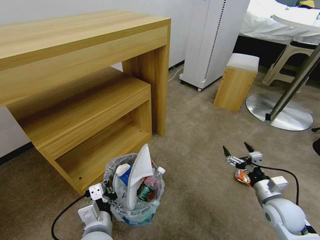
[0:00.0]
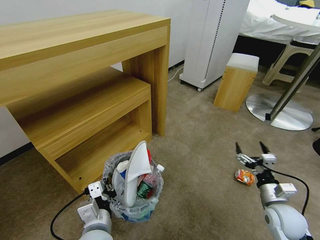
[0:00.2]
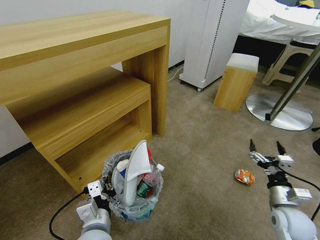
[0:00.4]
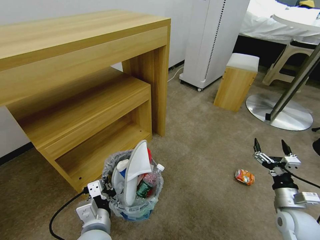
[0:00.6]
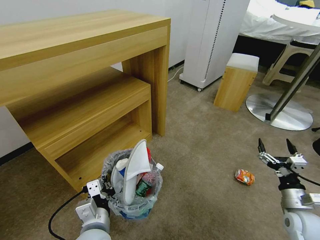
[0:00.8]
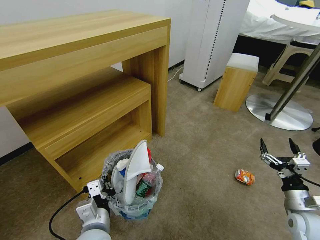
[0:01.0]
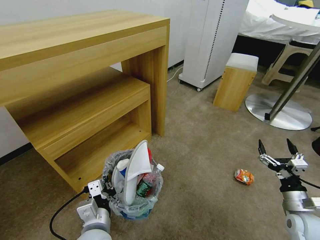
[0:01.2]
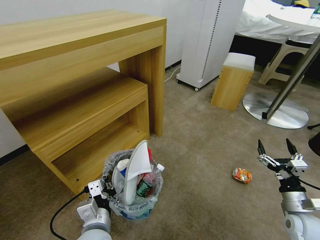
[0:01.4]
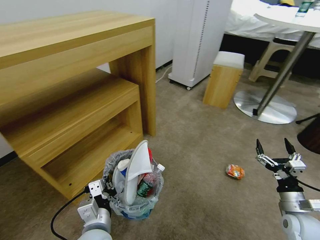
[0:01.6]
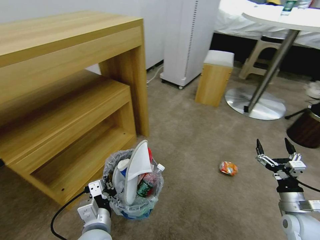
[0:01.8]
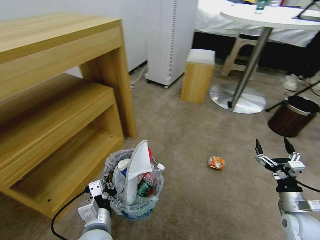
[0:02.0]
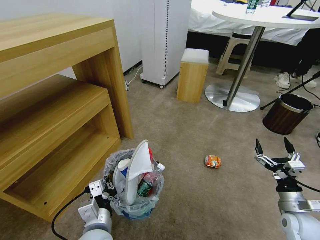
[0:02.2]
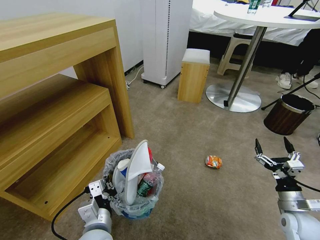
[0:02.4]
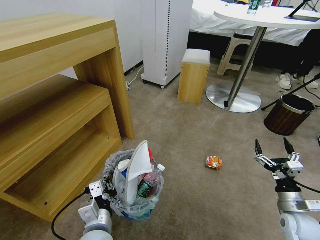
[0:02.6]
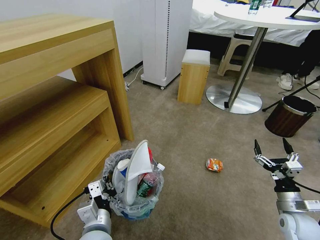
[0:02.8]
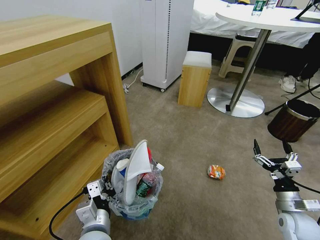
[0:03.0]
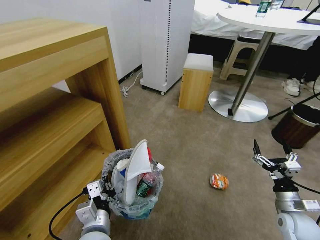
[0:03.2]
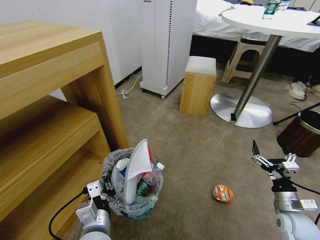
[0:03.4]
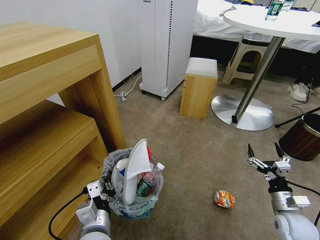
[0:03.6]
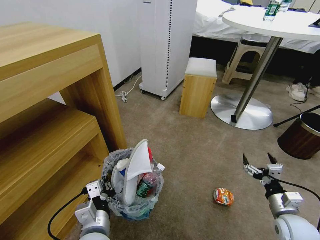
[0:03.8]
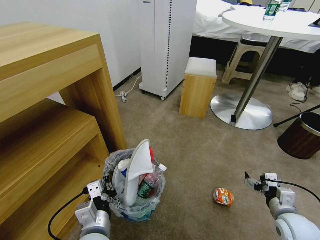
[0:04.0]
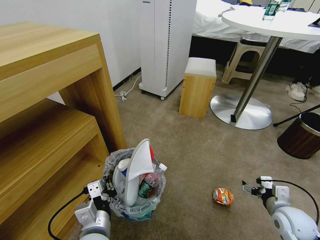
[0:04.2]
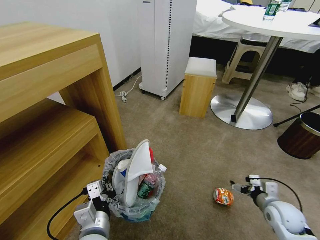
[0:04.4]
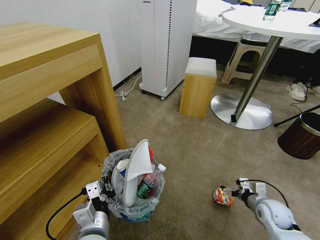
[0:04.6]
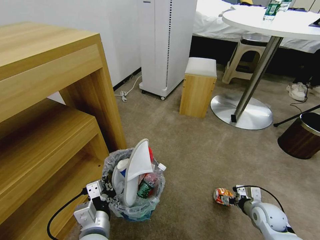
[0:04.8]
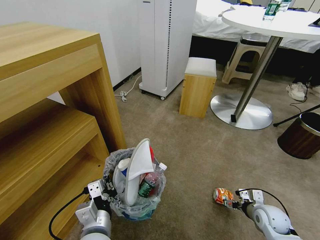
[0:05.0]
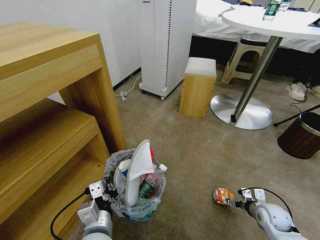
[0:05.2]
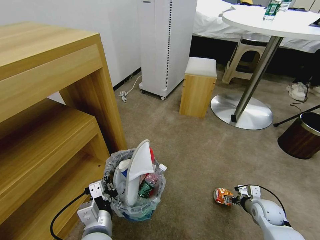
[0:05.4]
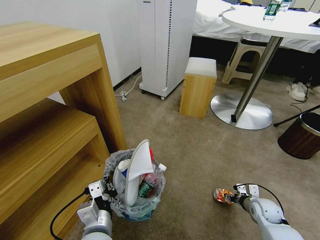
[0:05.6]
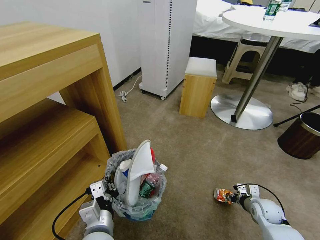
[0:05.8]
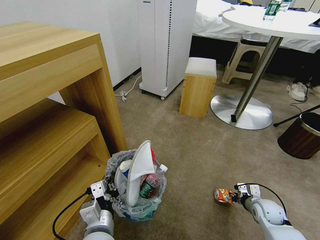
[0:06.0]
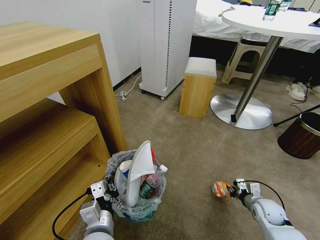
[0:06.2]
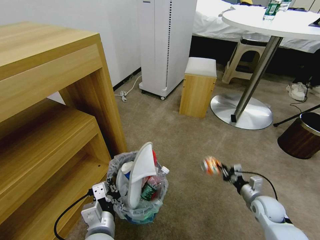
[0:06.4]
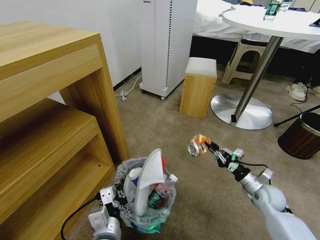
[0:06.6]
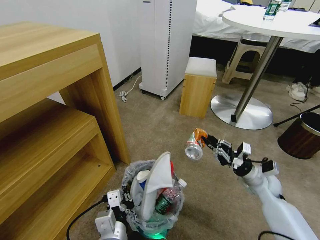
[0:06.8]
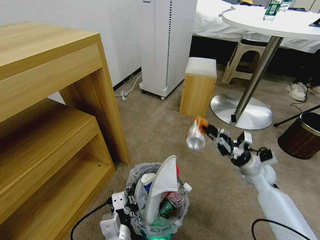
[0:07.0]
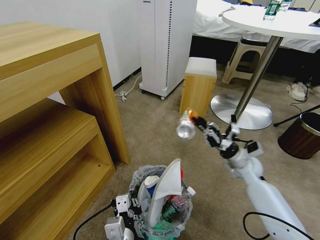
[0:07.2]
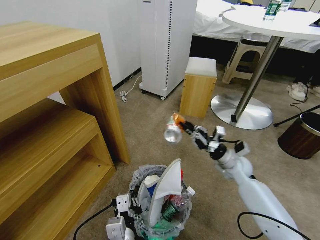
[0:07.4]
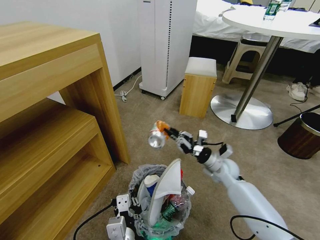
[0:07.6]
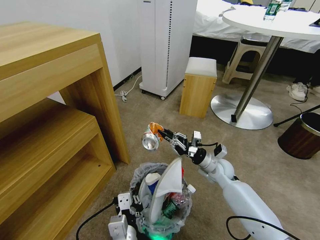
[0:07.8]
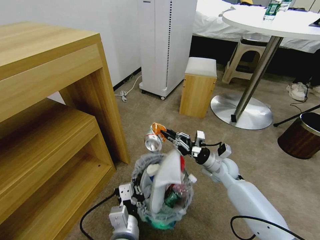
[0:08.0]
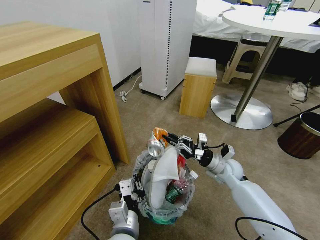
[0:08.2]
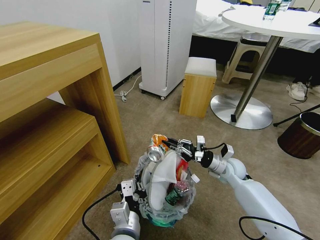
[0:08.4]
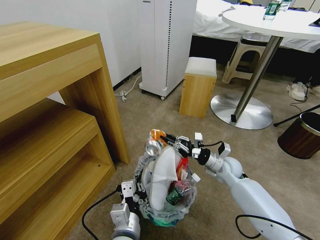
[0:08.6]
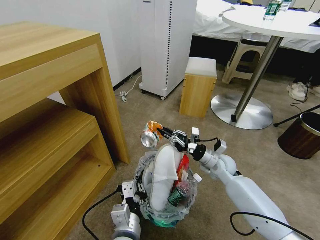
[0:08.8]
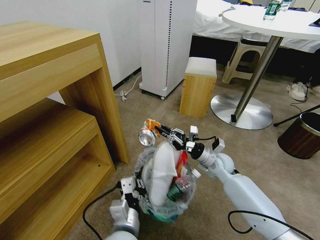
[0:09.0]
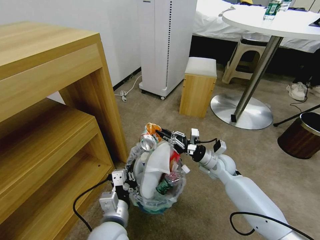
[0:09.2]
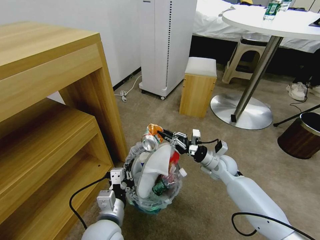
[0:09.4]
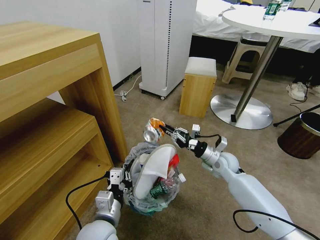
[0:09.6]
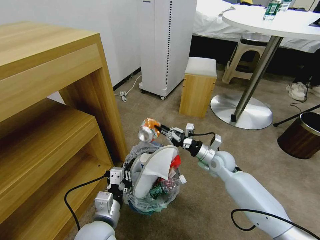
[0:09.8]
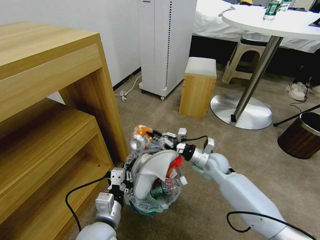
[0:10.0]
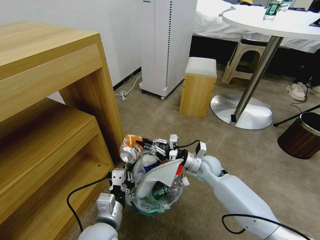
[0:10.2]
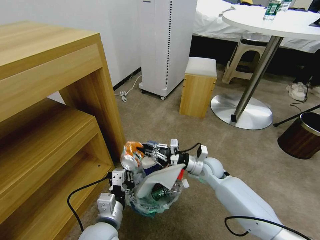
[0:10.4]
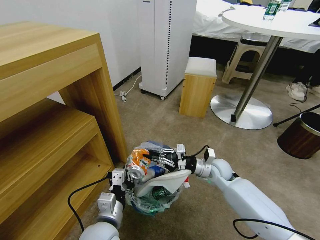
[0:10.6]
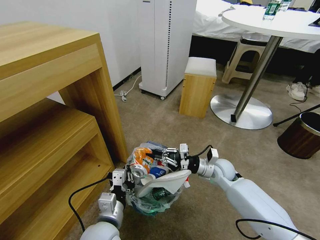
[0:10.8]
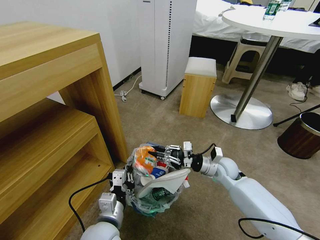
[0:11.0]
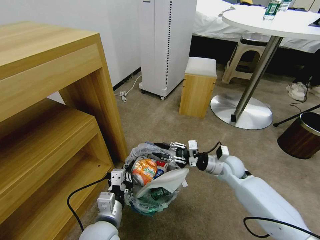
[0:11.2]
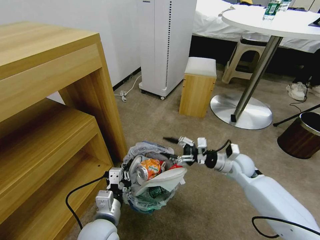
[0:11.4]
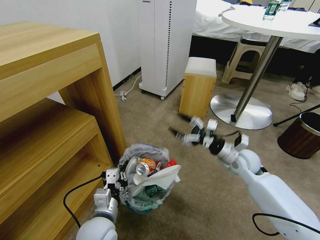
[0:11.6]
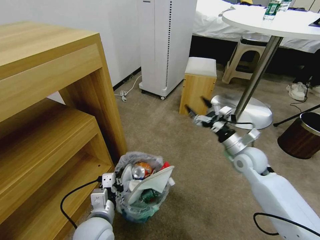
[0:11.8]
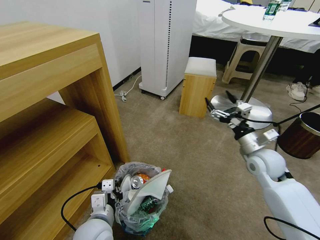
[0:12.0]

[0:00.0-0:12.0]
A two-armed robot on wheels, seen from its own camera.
Task of the whole recording: Pick up the trash bin and place the garbage on the floor into it.
0.0 to 1.6 s: The right gripper ends up about 5 cm from where it was.
4.4 to 6.0 s: The right gripper moves downward, some 5 cm, and closes its fingers.
6.0 to 7.6 s: The right gripper moves to the left, forward and upward, some 20 cm. The left gripper is displaced to the right by roughly 5 cm.
7.6 to 9.0 s: There are only small adjustments of the grippers.
9.0 to 10.4 s: The left gripper travels to the left by roughly 5 cm.
10.4 to 12.0 s: The right gripper is displaced to the right and upward by roughly 15 cm, and opens its fingers.

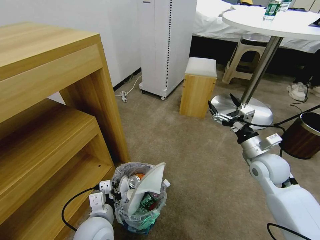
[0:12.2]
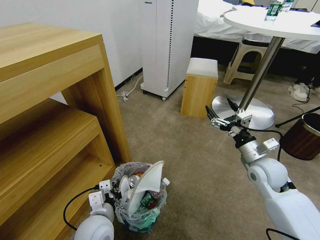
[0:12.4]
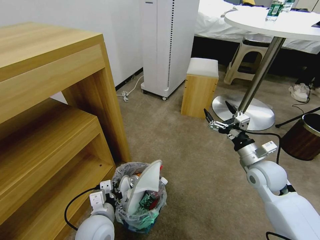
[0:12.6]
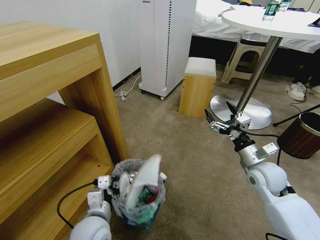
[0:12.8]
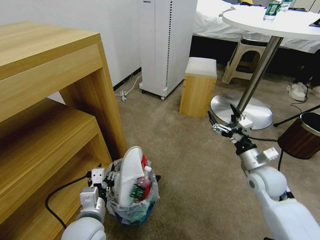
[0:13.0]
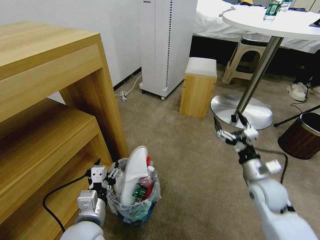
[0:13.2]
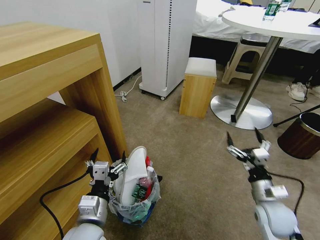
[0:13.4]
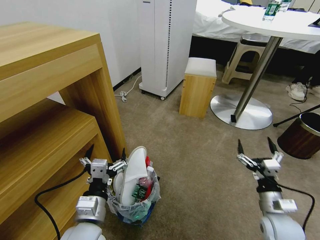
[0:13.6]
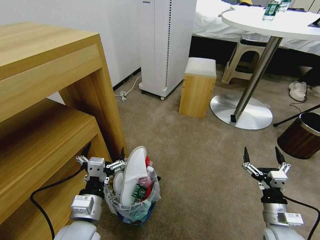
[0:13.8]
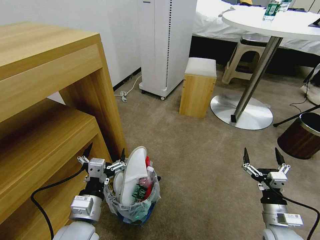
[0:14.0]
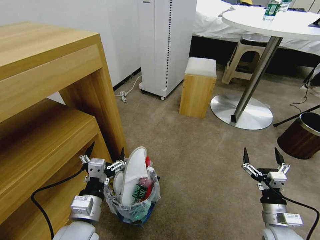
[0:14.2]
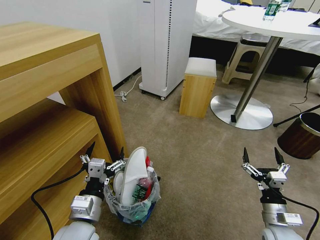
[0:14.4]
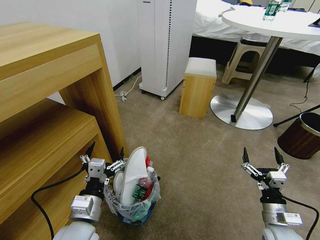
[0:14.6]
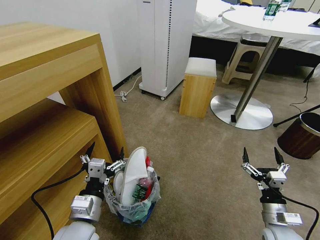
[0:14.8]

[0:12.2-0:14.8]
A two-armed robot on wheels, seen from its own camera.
Task of the whole recording: Pick up the trash bin and place the garbage on the floor into it.
12.2 to 13.4 s: The right gripper is displaced backward and downward by some 15 cm, while the left gripper opens.
13.4 to 14.8 s: The right gripper heads backward, covering roughly 5 cm.

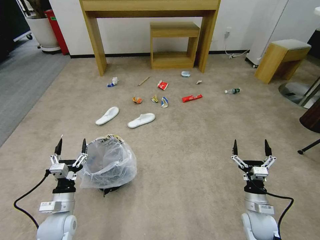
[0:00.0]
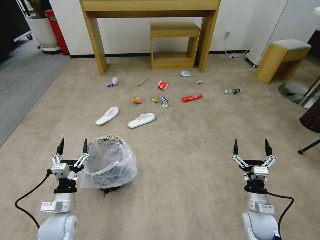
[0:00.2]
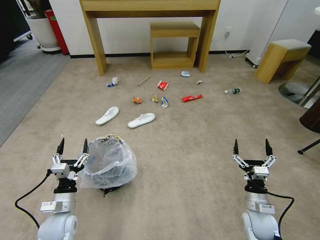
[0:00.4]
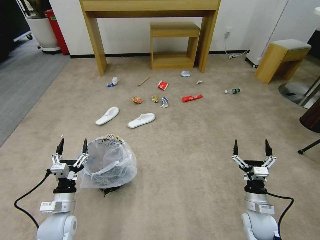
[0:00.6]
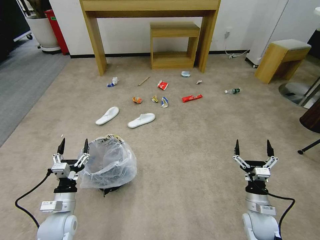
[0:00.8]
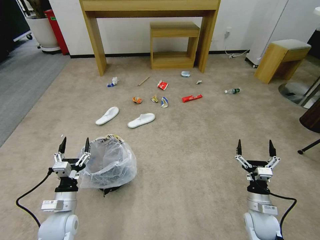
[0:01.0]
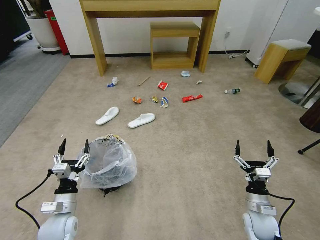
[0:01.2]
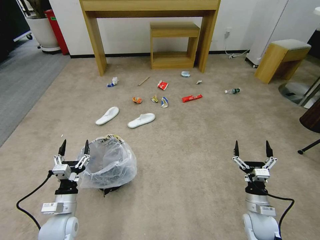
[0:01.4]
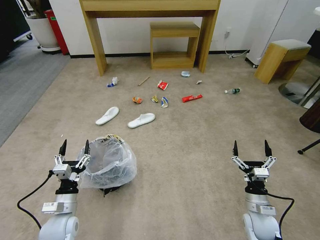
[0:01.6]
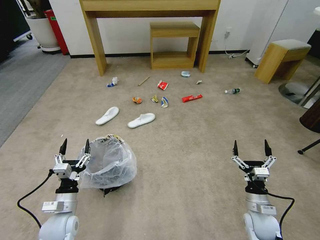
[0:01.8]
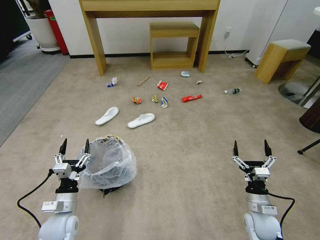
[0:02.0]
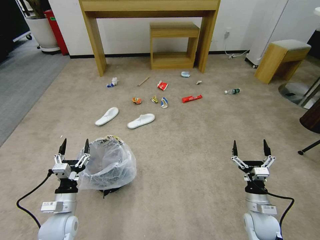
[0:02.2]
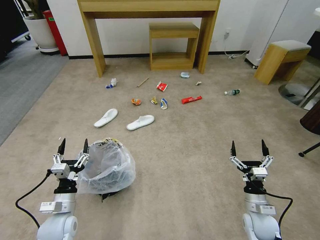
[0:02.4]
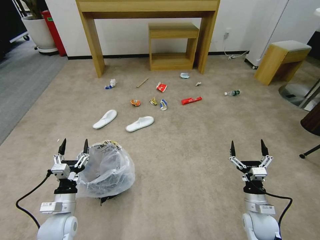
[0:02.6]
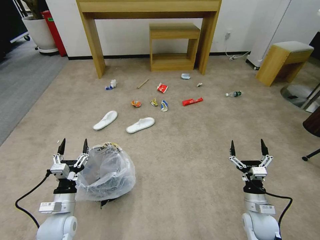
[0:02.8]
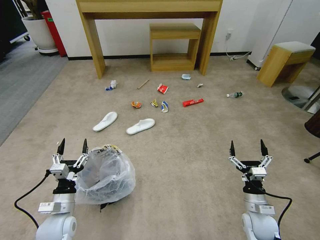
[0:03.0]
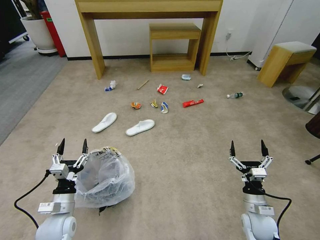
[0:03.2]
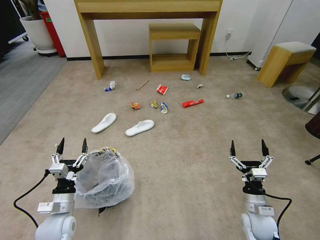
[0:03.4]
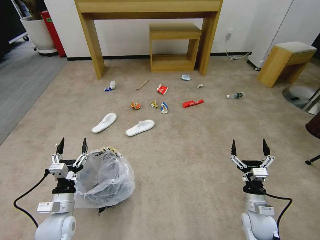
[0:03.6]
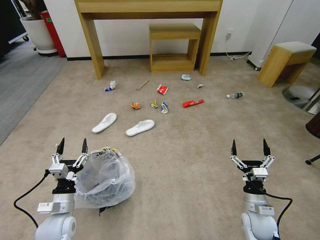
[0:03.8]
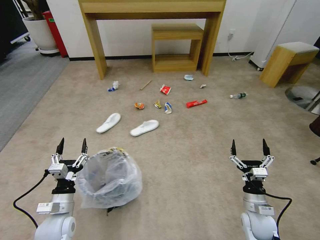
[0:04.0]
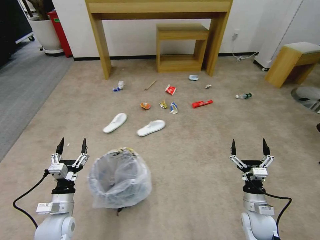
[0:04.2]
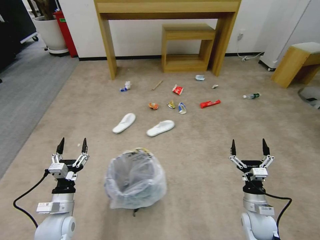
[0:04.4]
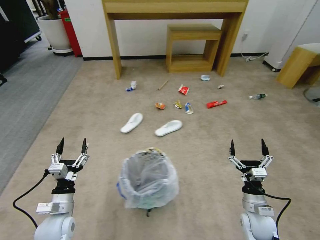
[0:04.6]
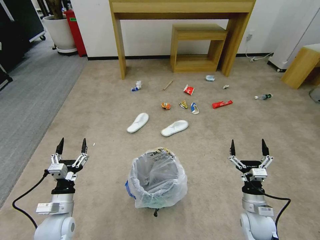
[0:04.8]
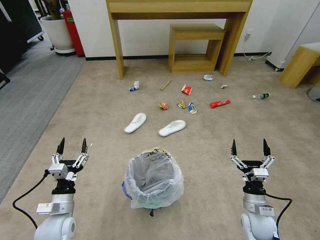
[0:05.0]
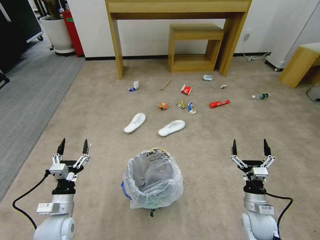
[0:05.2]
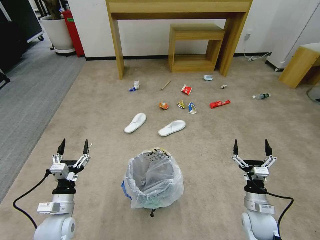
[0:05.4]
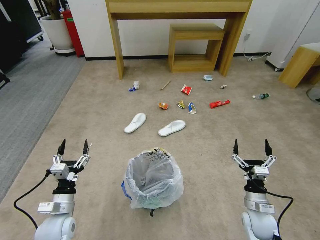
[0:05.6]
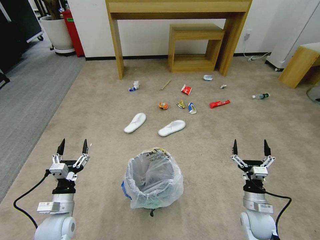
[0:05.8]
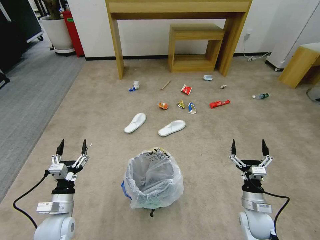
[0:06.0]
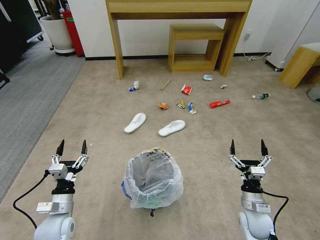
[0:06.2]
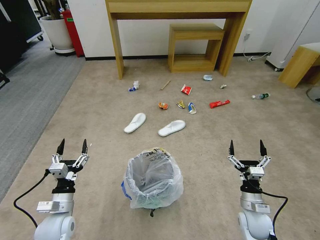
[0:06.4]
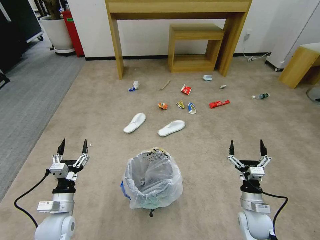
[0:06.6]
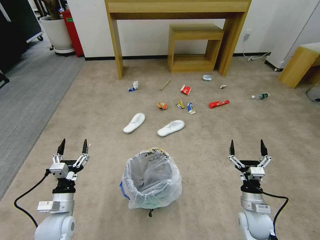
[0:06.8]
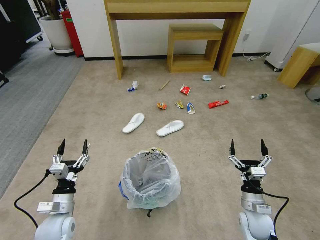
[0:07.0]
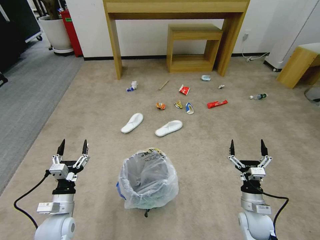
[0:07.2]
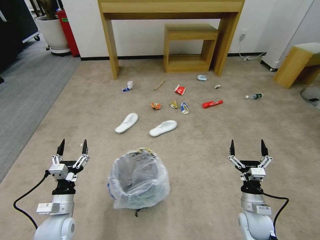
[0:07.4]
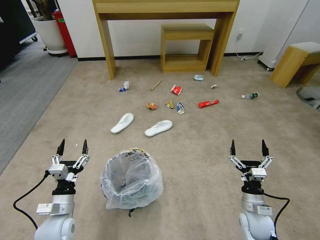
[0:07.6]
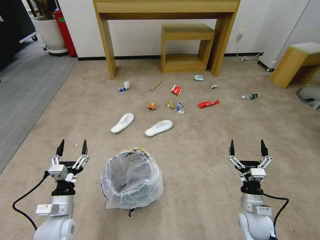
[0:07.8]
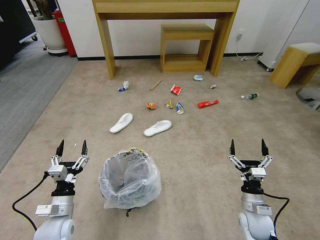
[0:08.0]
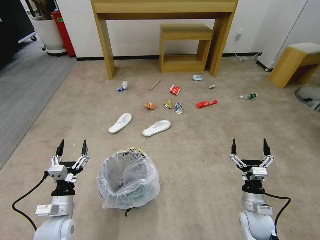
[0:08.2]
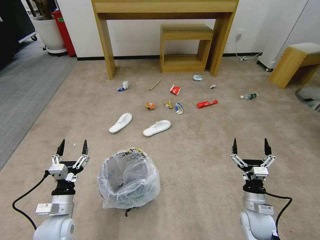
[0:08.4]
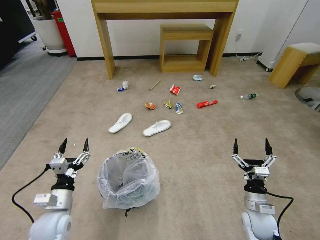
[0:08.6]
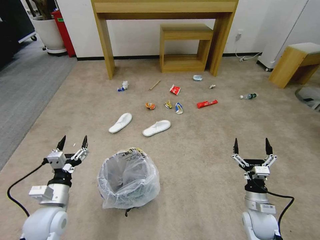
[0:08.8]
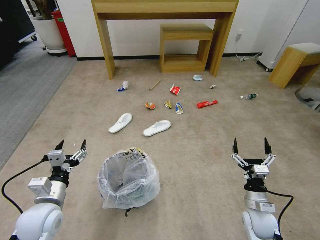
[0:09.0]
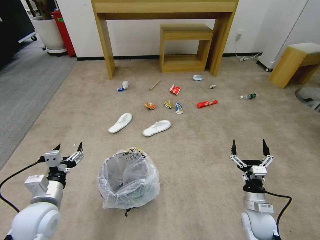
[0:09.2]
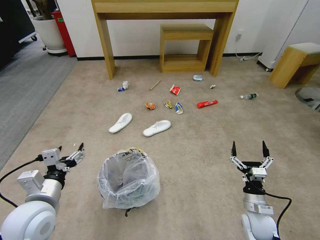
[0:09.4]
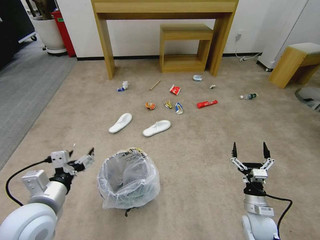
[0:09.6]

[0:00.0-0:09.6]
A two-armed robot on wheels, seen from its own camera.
Task of the whole recording: Pick up the trash bin and place the garbage on the floor into it.
1.6 to 3.2 s: The two grippers keep their place.
4.8 to 8.0 s: Neither gripper changes place.
8.0 to 9.6 s: The left gripper goes about 15 cm upward.
